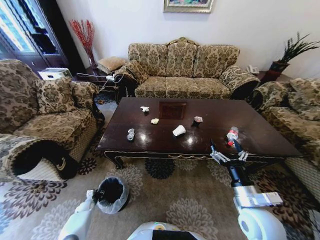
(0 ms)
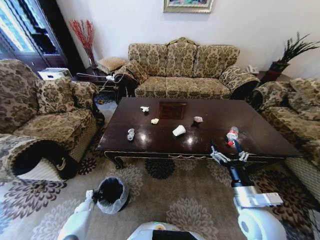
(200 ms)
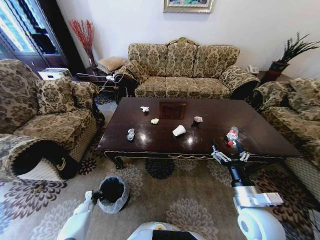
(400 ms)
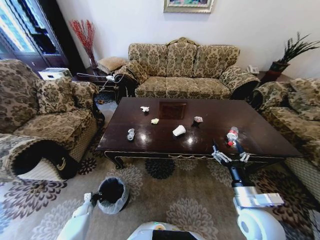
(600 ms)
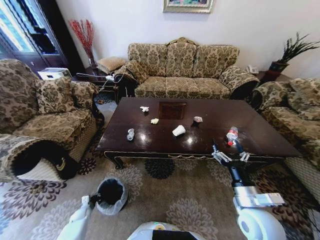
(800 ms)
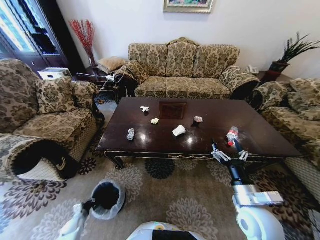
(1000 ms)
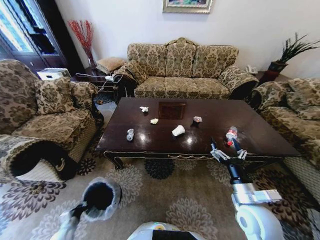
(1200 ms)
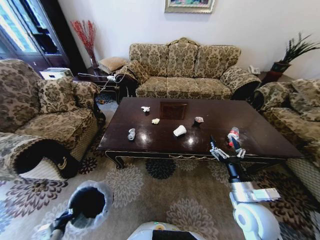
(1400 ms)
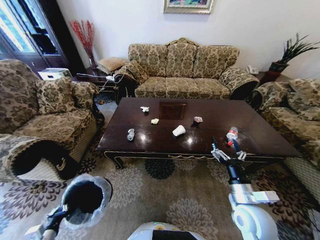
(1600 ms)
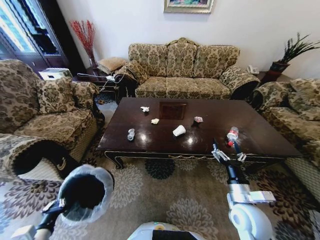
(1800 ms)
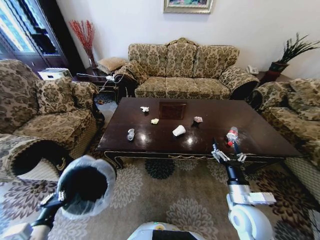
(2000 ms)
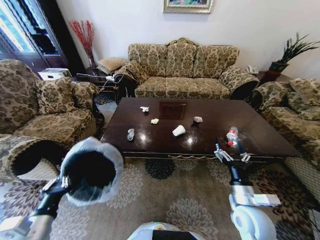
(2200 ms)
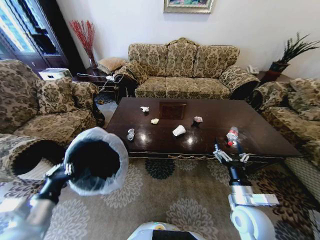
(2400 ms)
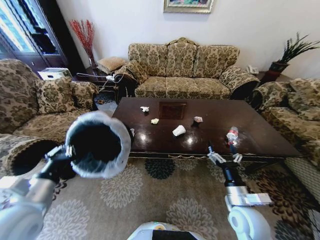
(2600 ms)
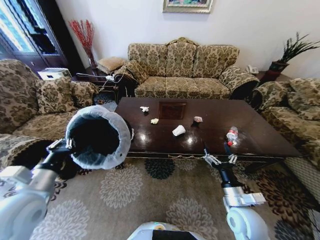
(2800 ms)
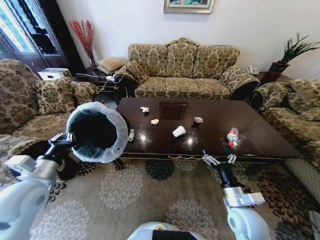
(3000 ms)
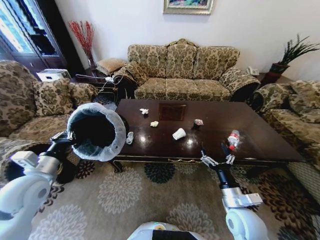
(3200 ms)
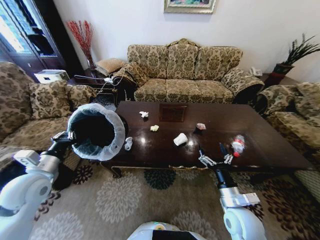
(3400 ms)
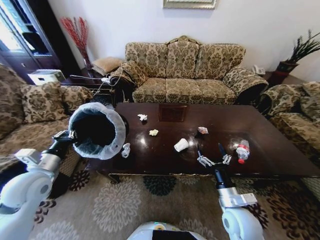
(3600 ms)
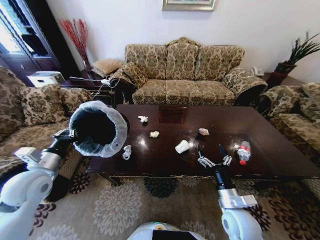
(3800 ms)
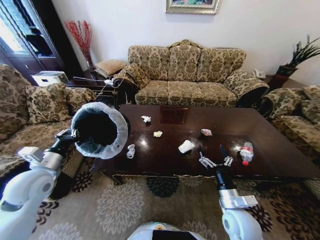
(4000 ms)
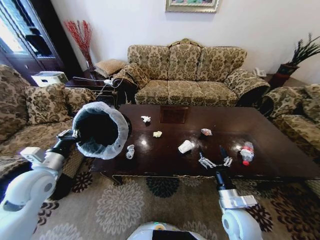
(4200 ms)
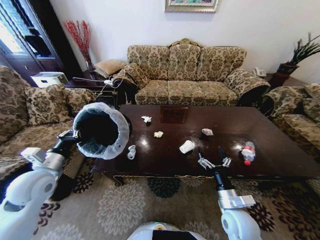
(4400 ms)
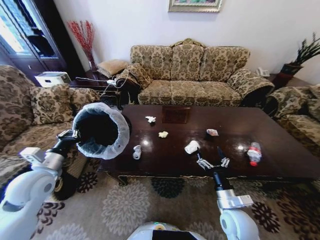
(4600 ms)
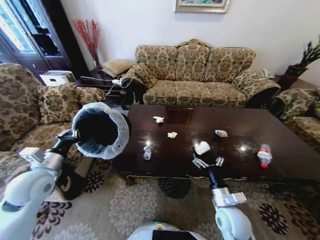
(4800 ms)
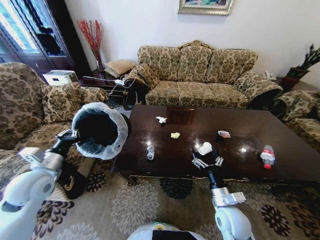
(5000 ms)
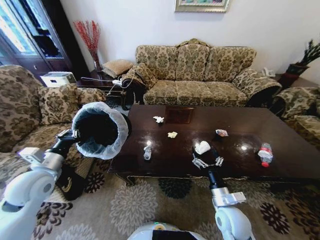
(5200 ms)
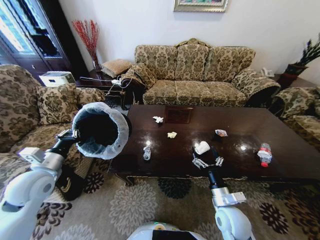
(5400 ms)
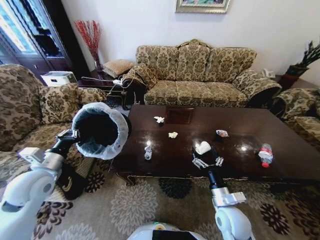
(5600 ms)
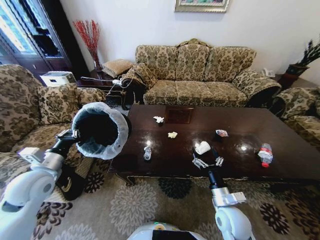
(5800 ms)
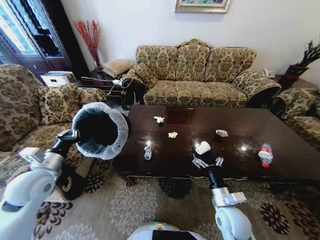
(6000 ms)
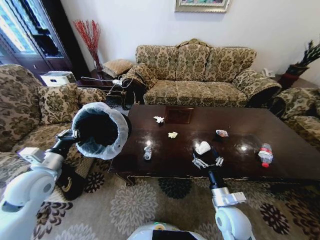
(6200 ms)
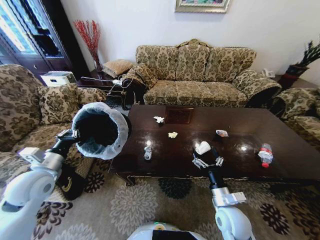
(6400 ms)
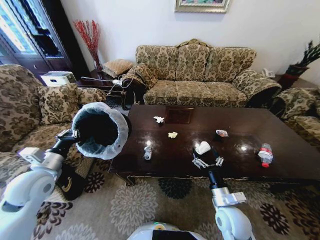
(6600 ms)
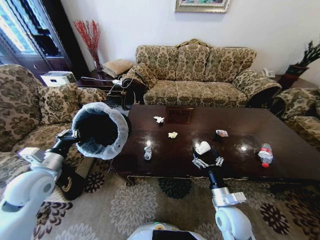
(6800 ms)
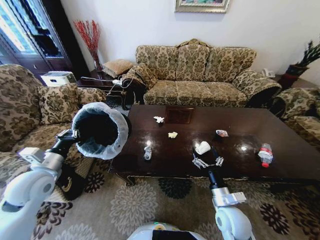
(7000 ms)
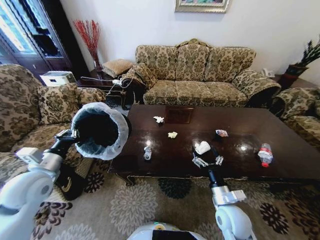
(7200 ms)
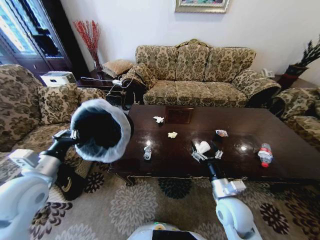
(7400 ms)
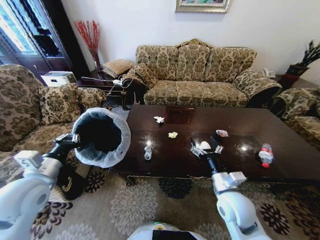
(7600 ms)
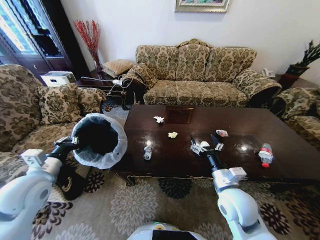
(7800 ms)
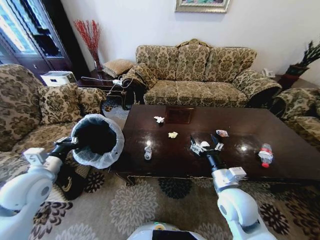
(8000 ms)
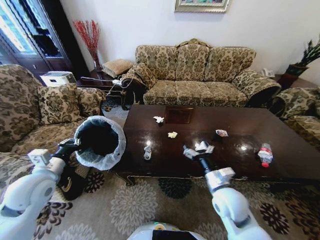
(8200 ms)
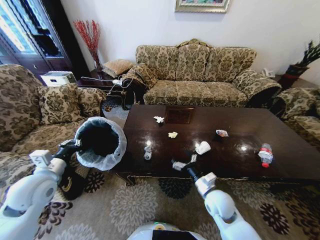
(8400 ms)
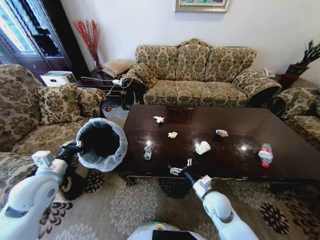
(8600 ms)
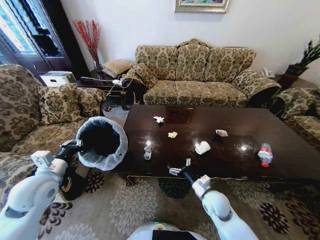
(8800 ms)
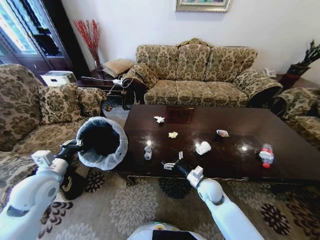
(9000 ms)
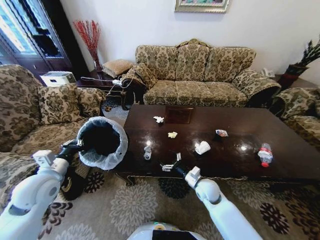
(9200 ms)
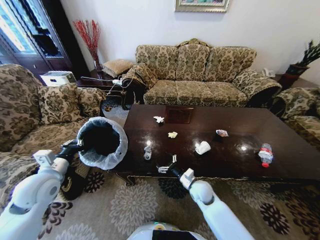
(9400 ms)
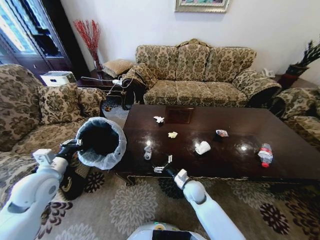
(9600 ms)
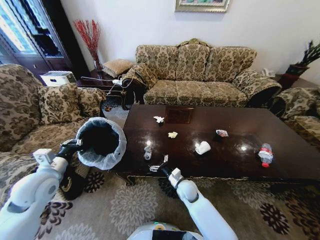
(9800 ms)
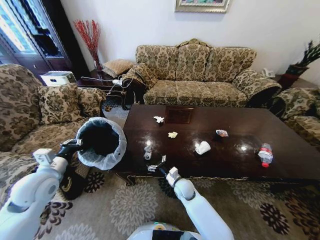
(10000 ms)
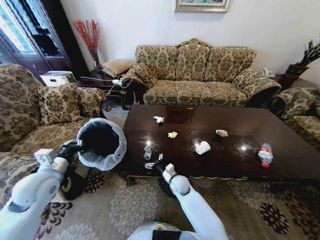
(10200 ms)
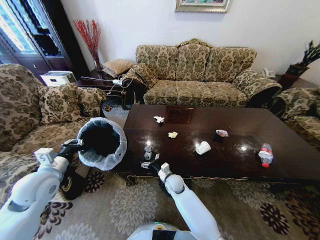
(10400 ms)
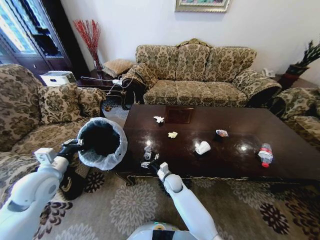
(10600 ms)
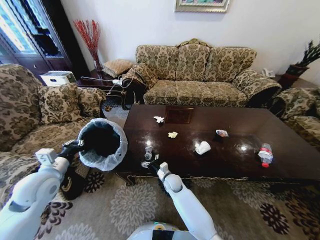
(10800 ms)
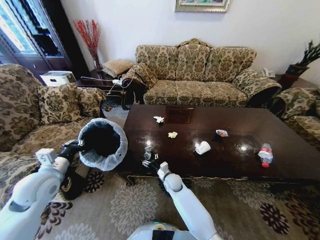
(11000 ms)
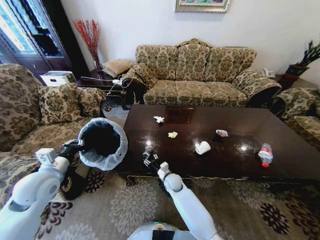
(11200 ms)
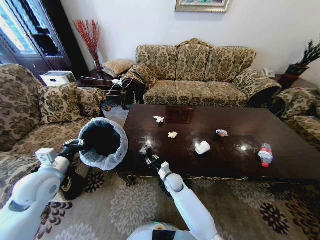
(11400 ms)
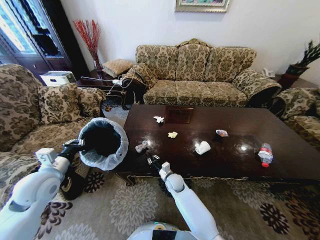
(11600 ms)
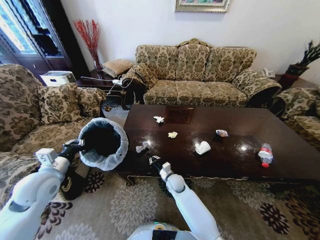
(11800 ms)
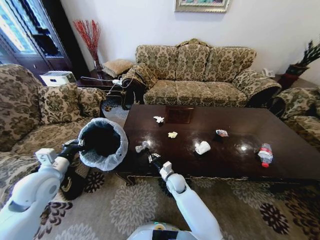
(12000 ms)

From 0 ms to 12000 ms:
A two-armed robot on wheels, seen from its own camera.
Task of the whole recording: Move to the front of the table and place the trash on the table into the trash bin.
From 0 ms to 1600 ms: The left gripper is displaced upward and backward by about 30 cm, and closes up.
From 1600 ms to 3000 ms: The left gripper goes roughly 30 cm upward and forward.
From 6000 ms to 7600 ms: The left gripper shifts by some 5 cm. The right gripper is displaced upward by some 5 cm.
From 7600 ms to 9000 ms: The right gripper is displaced downward and forward by roughly 15 cm, while the left gripper shifts by roughly 5 cm.
From 9000 ms to 10400 ms: The right gripper is displaced to the left and downward by roughly 15 cm.
From 10400 ms to 12000 ms: The right gripper closes up.

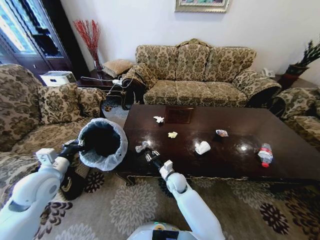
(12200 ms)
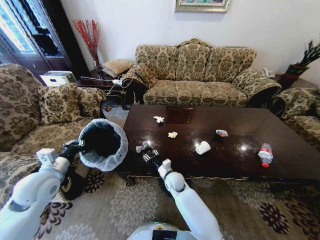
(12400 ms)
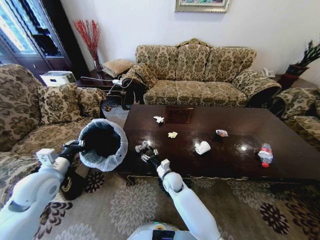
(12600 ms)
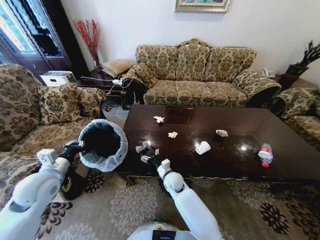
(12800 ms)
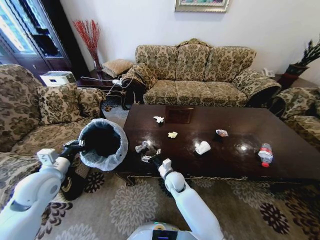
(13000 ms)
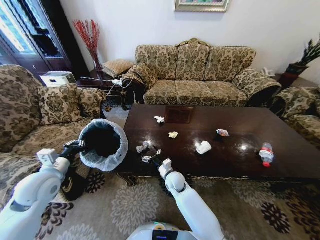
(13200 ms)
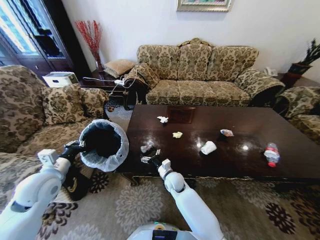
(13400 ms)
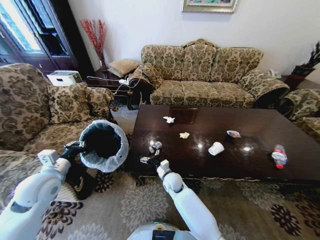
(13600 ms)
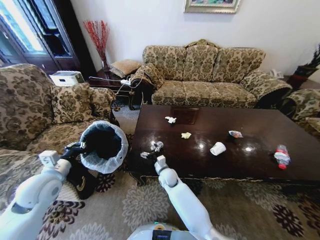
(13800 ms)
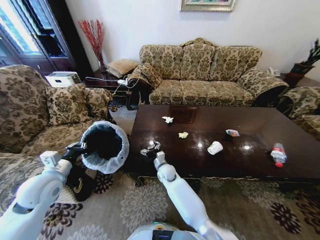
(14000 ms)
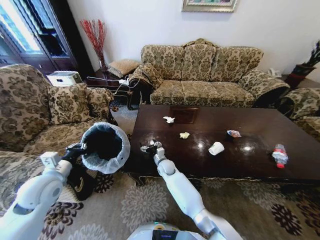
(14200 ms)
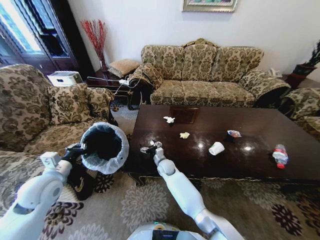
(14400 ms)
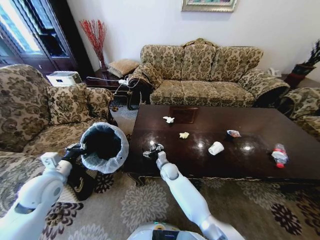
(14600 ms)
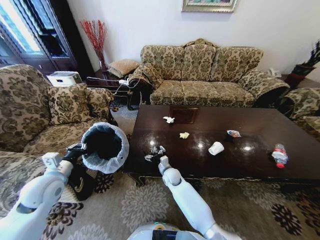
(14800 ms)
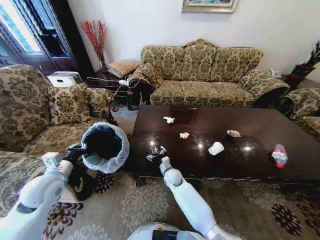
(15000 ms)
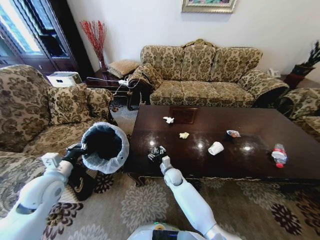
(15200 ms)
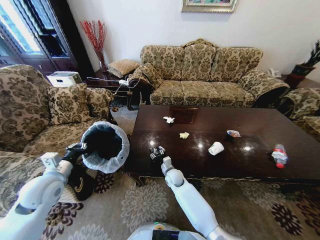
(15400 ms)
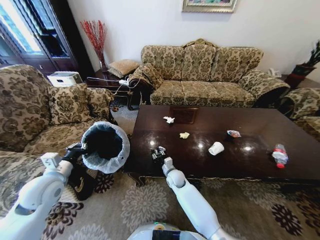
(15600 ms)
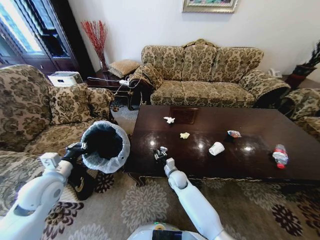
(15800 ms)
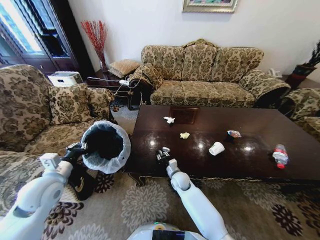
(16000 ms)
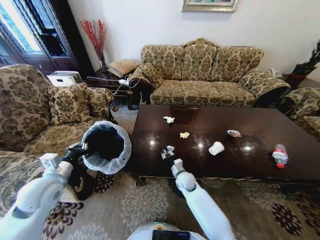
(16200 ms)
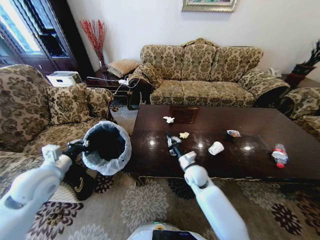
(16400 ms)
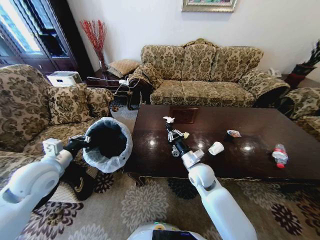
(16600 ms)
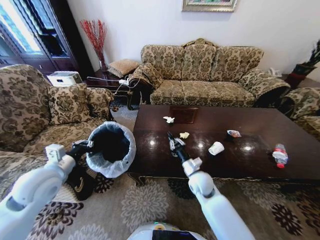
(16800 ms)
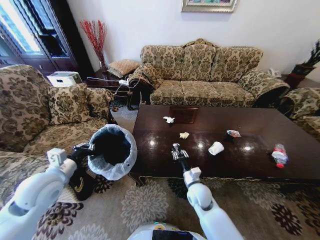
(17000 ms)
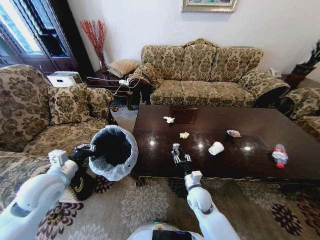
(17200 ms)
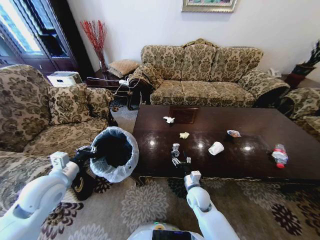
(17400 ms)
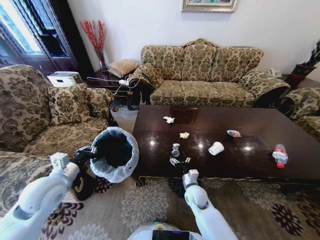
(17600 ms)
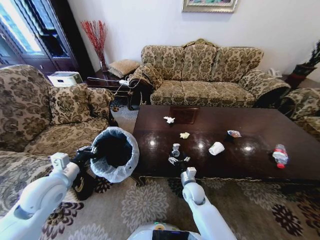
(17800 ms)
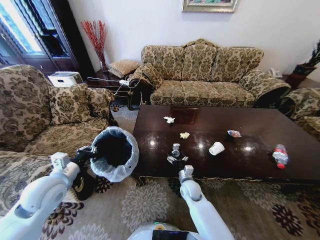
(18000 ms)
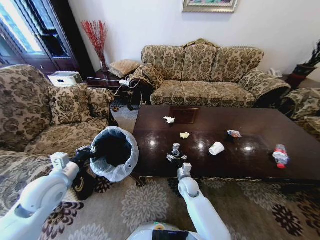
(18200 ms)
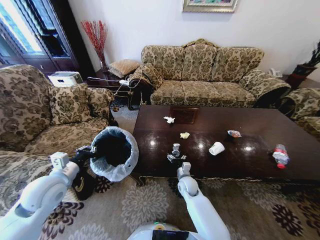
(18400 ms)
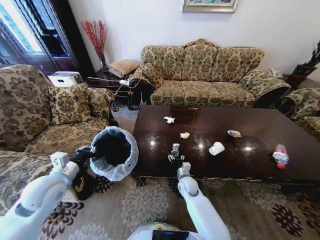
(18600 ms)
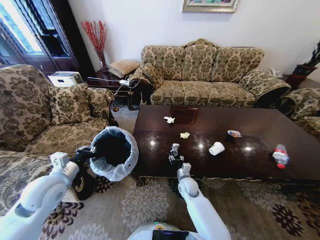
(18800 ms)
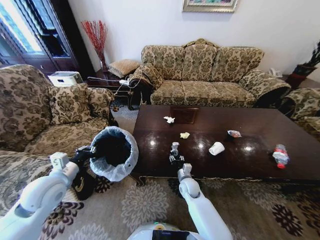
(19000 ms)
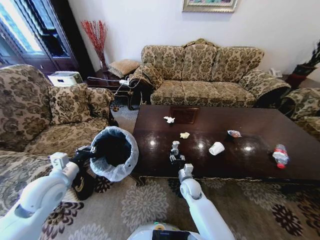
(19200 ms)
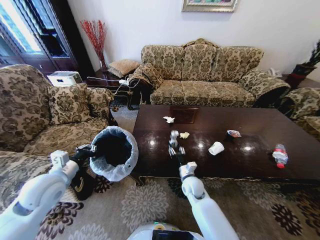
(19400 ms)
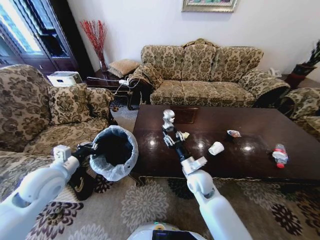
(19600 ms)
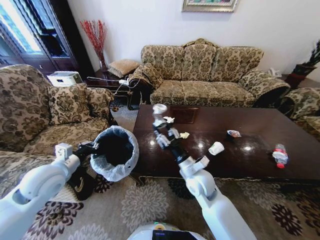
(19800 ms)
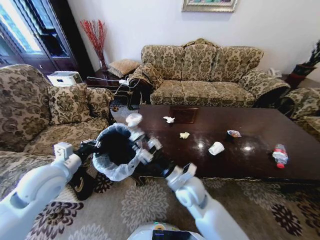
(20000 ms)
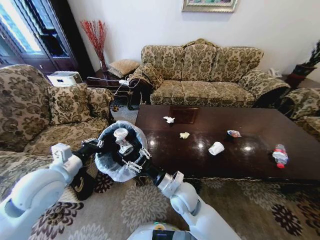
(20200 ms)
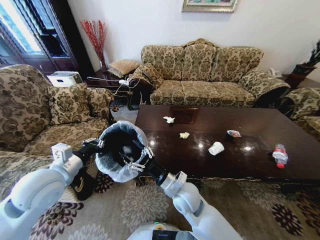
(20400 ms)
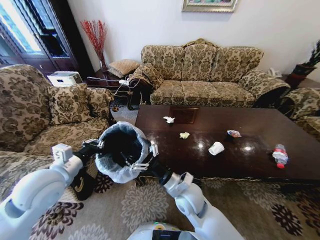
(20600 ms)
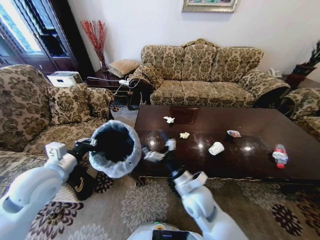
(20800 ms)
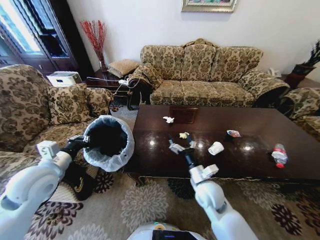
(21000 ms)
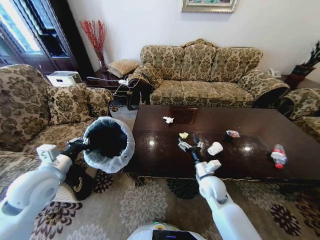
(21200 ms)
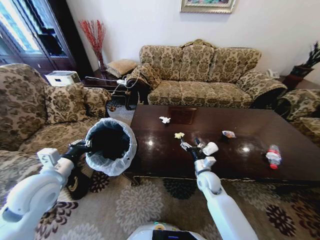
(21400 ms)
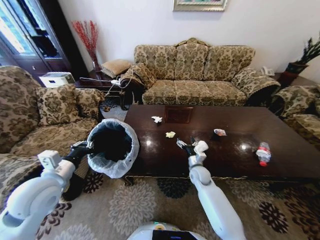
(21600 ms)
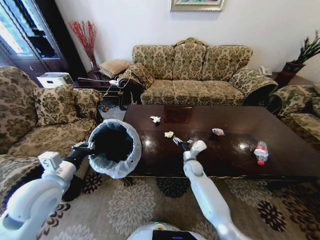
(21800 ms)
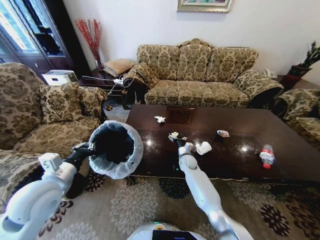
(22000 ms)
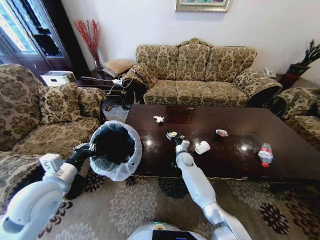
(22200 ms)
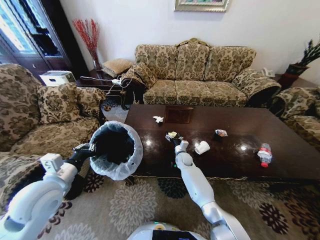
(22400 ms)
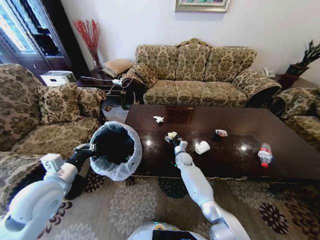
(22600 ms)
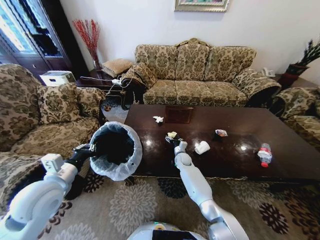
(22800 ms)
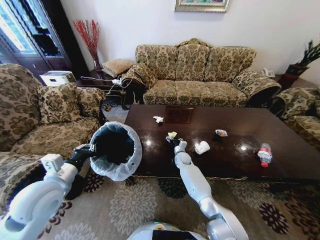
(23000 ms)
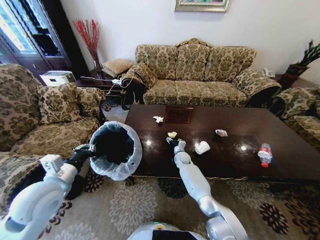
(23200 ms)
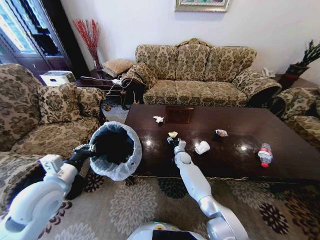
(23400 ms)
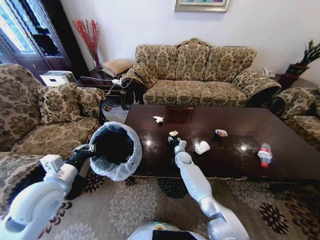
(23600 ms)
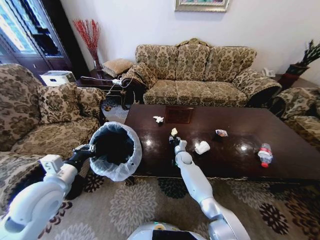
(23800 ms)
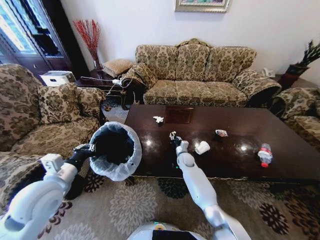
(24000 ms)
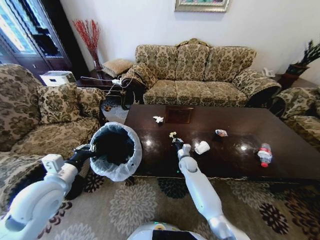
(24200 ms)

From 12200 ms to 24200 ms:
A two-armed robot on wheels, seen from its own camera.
Task of the whole recording: Move to the front of the table and place the trash on the table into the trash bin.
From 12200 ms to 13800 ms: The right gripper opens up.
From 15200 ms to 16600 ms: The left gripper goes some 5 cm upward. Meanwhile the right gripper is displaced upward and to the right by about 20 cm, and closes.
From 16600 ms to 18200 ms: The right gripper shifts about 15 cm downward, and opens its fingers, while the left gripper moves about 5 cm.
From 18200 ms to 19800 ms: The right gripper shifts about 20 cm upward, and closes up.
From 19800 ms to 21200 ms: The right gripper is displaced to the right and downward by some 10 cm, and opens its fingers.
From 21200 ms to 22600 ms: The right gripper travels forward and downward by roughly 20 cm.
From 22600 ms to 24200 ms: The right gripper closes.
